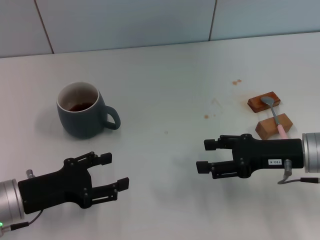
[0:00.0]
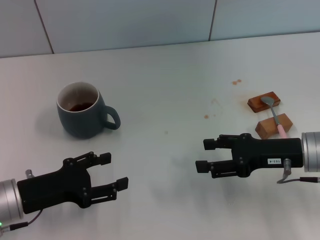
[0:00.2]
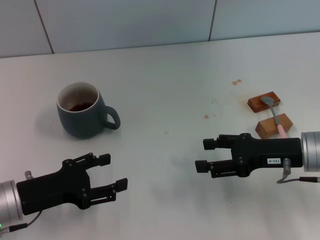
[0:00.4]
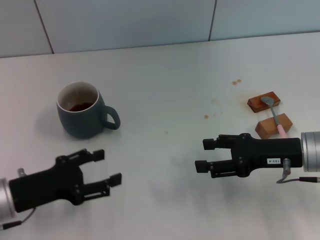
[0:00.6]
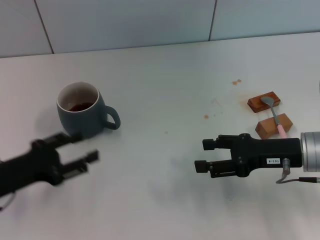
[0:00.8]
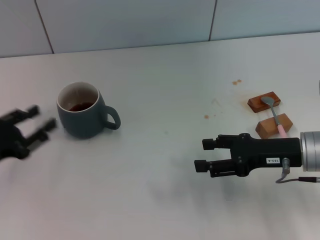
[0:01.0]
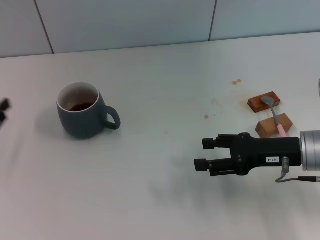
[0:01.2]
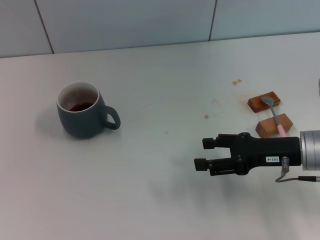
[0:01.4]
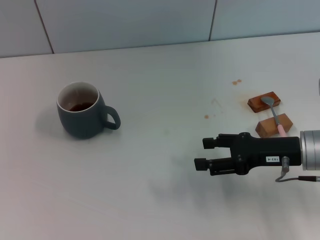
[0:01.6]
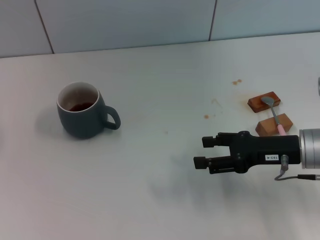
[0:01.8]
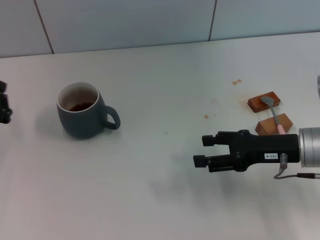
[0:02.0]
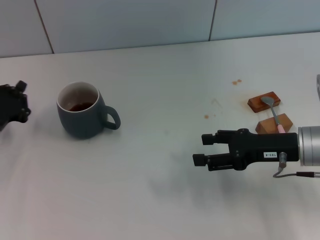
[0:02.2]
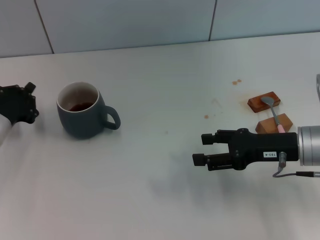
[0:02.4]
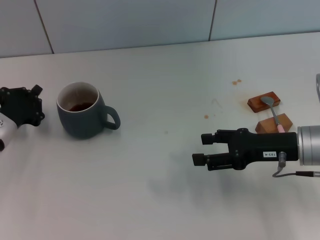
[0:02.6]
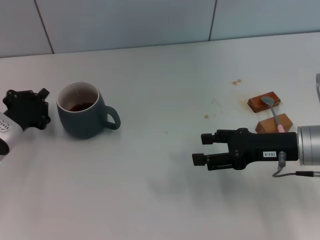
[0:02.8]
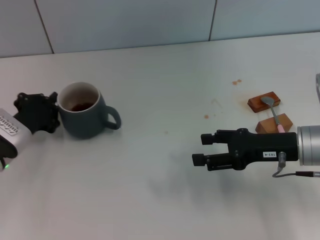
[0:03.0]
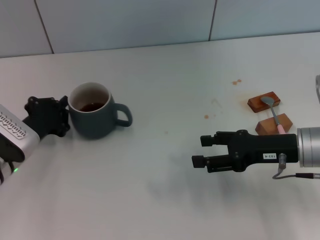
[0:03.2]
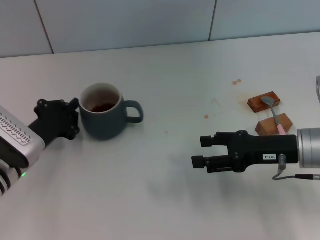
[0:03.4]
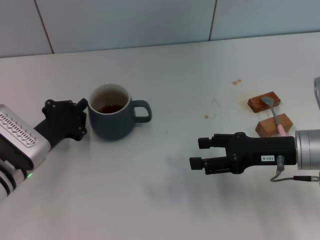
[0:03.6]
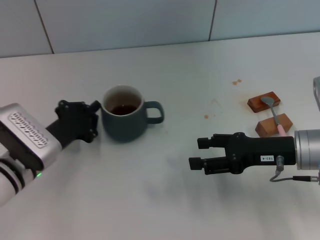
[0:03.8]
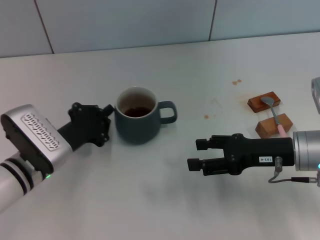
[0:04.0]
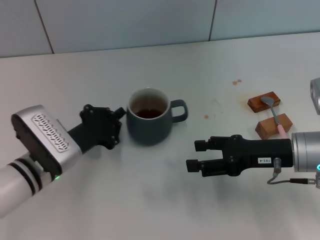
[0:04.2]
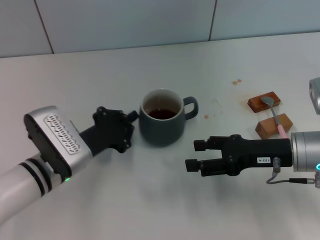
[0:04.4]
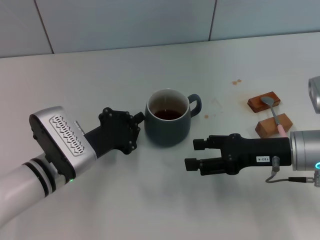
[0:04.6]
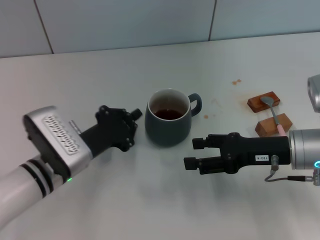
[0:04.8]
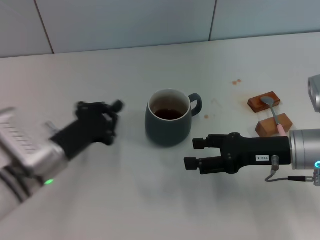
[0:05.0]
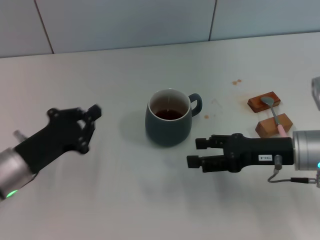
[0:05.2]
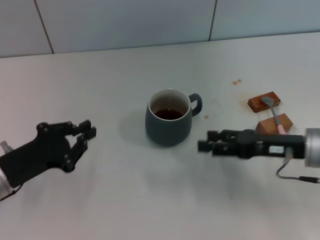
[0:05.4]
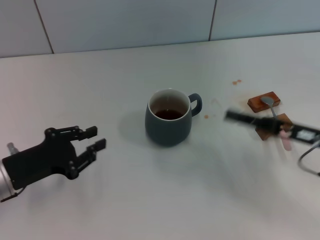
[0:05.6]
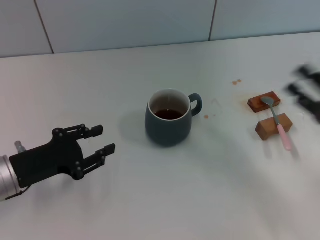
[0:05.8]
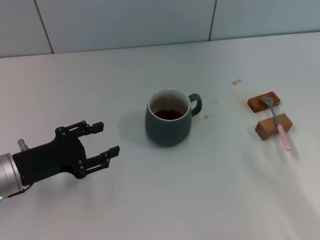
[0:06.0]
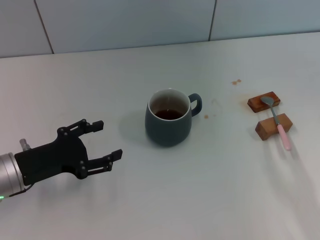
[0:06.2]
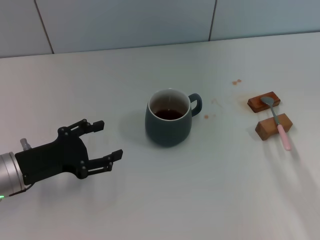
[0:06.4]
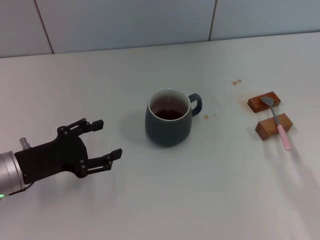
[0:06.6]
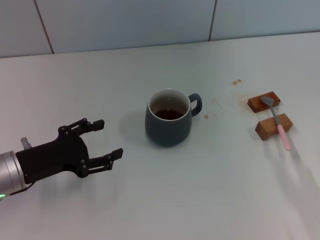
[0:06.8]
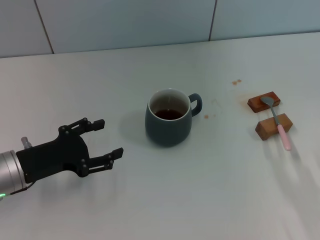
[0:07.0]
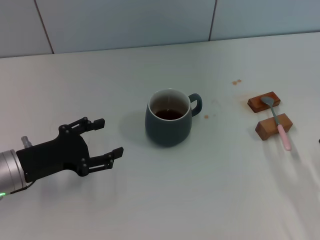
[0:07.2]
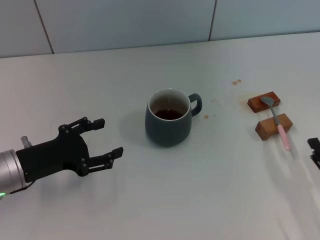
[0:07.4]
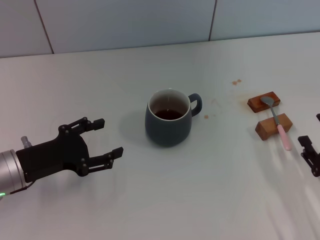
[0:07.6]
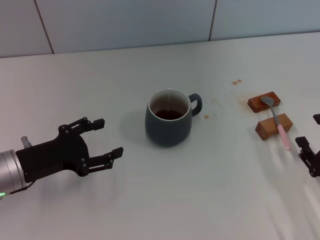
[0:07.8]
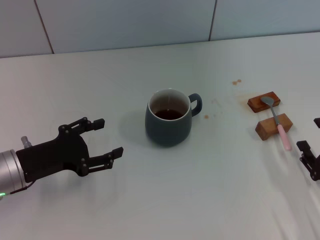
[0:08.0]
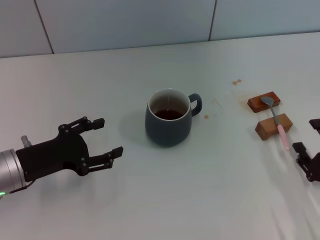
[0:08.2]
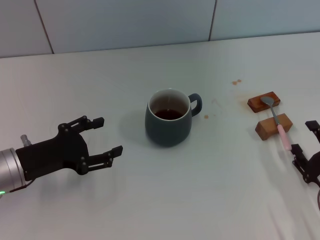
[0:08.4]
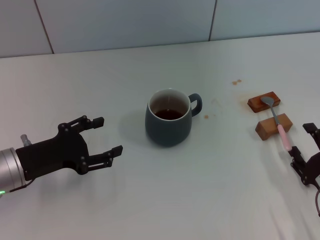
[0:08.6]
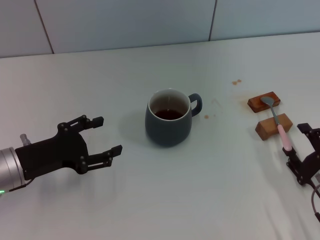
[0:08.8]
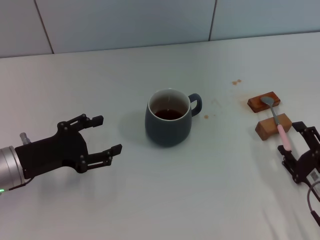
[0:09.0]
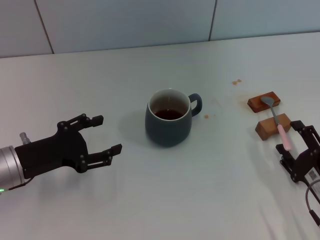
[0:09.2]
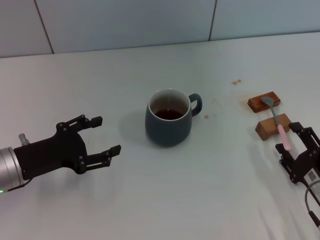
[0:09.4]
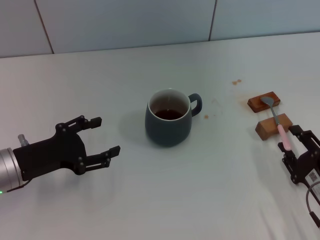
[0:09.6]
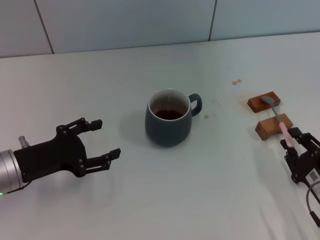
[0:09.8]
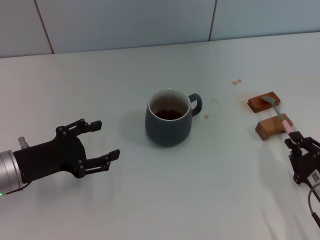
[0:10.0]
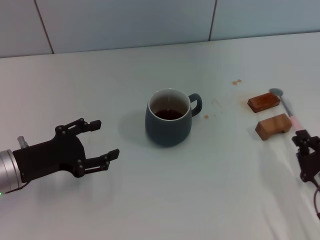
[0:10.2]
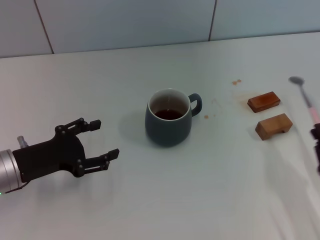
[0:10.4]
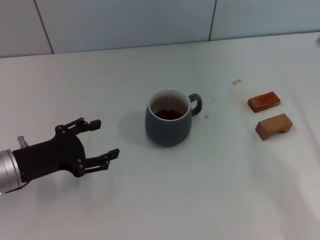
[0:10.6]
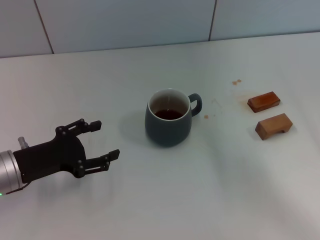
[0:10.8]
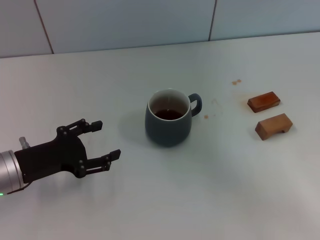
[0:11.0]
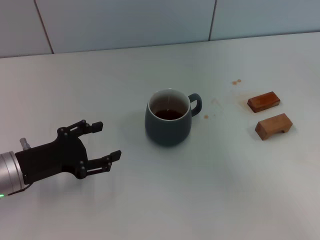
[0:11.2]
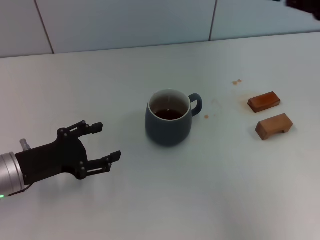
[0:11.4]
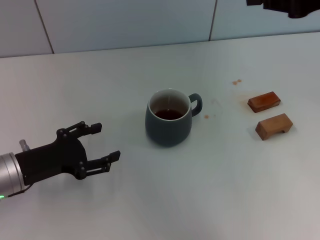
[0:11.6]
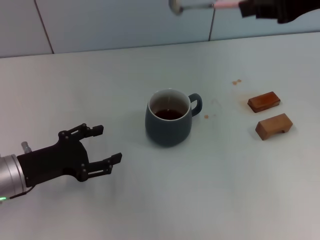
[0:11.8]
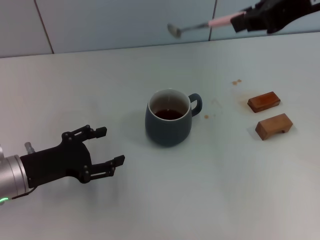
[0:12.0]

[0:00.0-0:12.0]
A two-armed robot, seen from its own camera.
Task of the whole recording: Move the grey cup to the center, lift the pink spoon, stir it three times in the cup, and put the spoon into the cup.
Step, 0.0 to 4.6 s: Move the cup with coffee to the center of view with the left gripper.
Step, 5.0 to 10.2 s: Pick up the spoon with the right gripper.
0.0 to 1.6 s: The left gripper is displaced to the left by roughly 10 cm, and closes its fingers.
1.6 to 3.0 s: The left gripper heads to the right, covering some 10 cm.
3.0 to 4.4 s: The left gripper heads to the right, covering some 10 cm.
4.4 to 6.0 s: The left gripper is displaced to the left by some 10 cm, and opens its fingers, while the right gripper moves backward and to the right, about 15 cm.
6.0 to 7.6 s: The right gripper moves roughly 5 cm. The left gripper opens up.
7.6 to 9.0 s: The grippers move only a little.
9.0 to 10.4 s: The right gripper closes its fingers.
10.4 to 12.0 s: The right gripper heads upward and forward, covering roughly 40 cm.

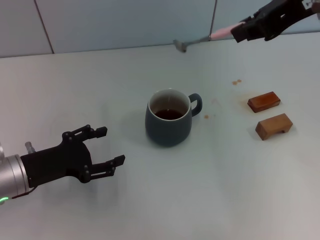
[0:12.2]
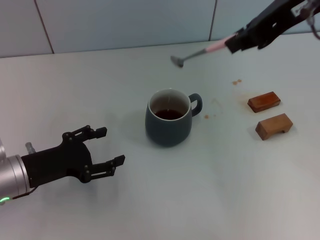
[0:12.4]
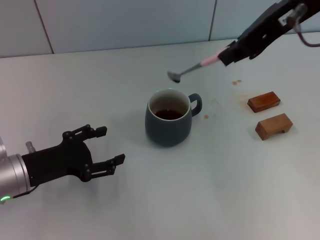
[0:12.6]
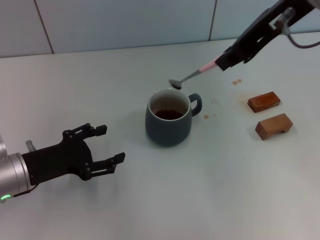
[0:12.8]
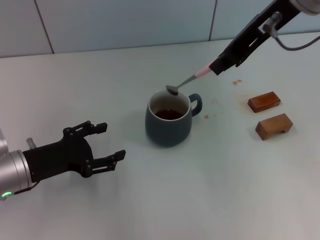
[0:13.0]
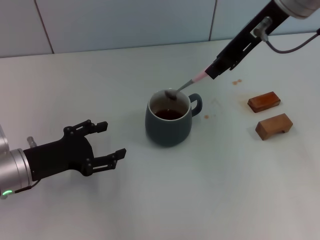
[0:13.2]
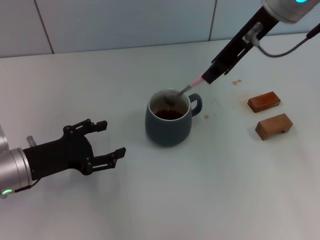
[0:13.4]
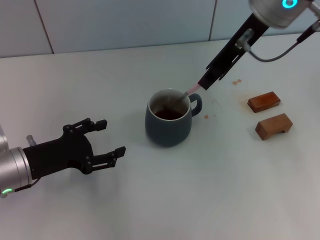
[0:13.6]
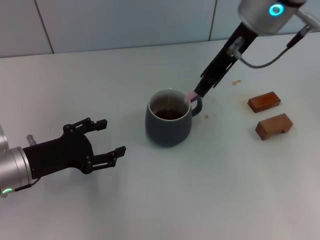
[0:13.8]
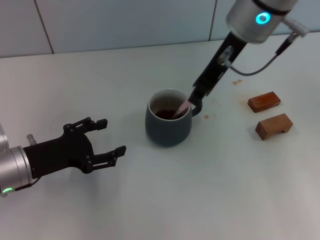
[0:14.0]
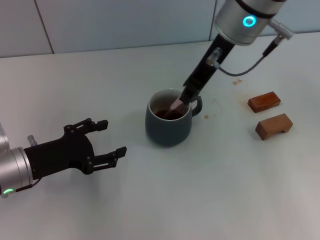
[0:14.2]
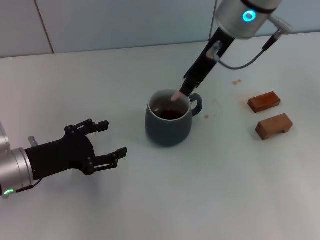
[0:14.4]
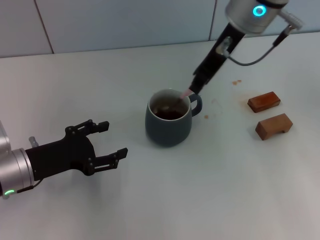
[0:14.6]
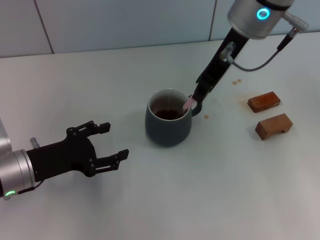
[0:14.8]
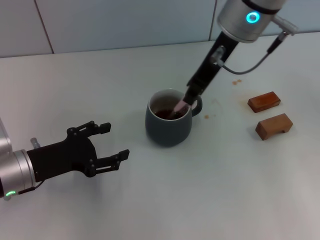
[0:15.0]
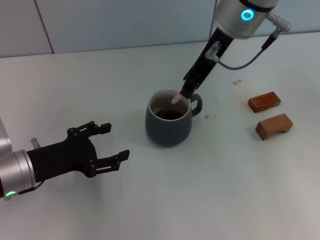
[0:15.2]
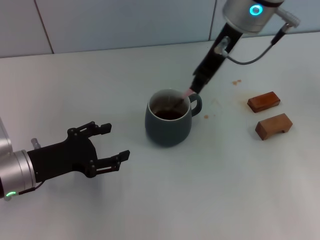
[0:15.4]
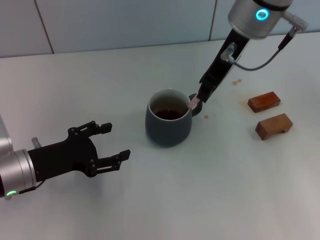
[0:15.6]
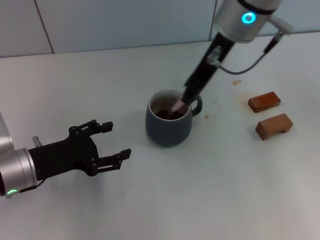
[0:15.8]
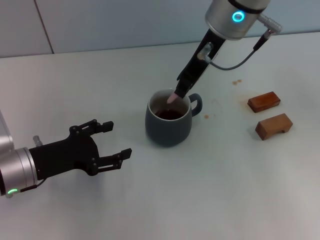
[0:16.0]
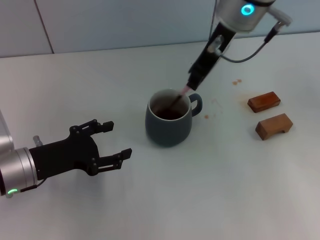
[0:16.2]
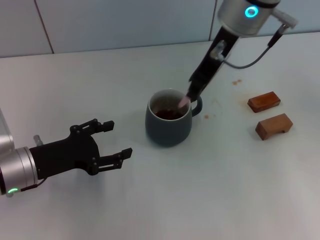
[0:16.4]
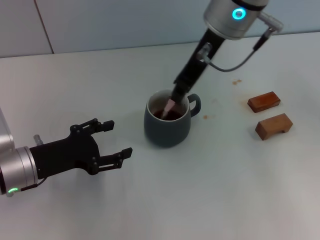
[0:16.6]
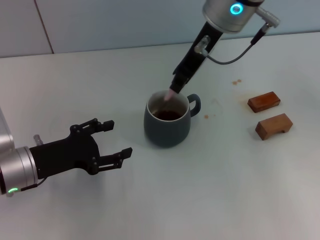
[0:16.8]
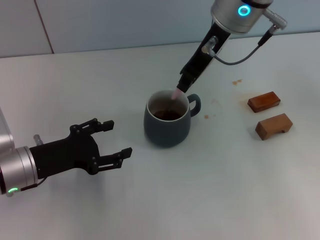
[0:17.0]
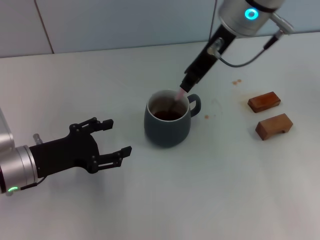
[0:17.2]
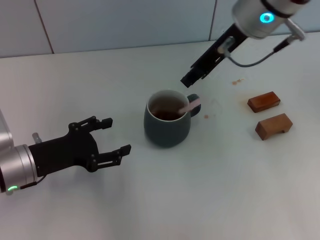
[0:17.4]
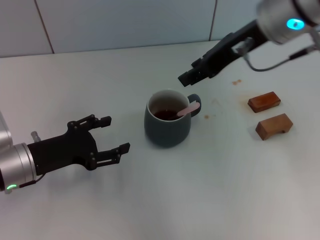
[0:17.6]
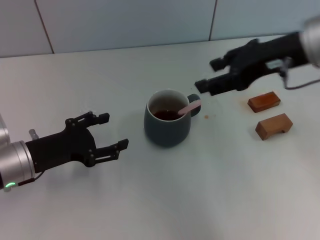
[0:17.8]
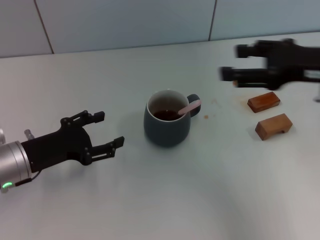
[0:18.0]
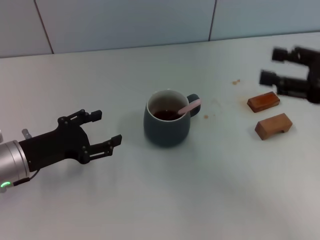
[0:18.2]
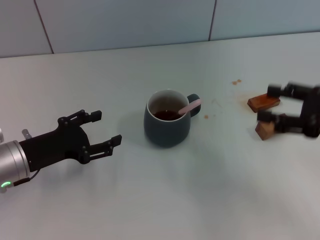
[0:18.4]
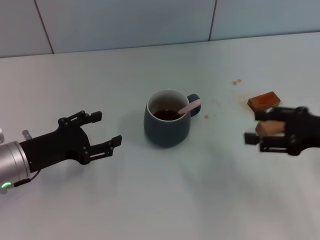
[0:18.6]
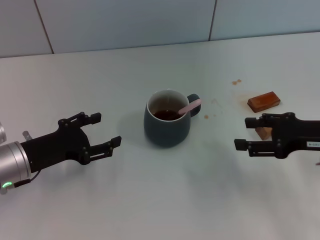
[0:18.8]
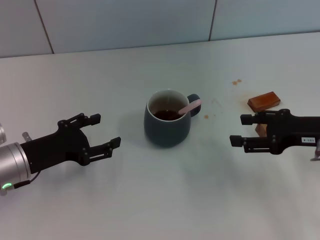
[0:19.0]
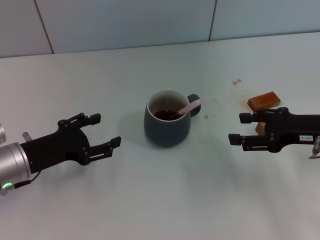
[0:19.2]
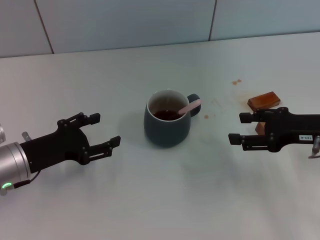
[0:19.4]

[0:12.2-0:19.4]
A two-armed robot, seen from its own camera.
Task of the whole recording: Move the grey cup to the center, lift the pink spoon, stir it three times in the cup, and put the spoon into the cup.
Step, 12.2 to 17.6 s: Stir the coffee in the cup with the right gripper.
12.2 to 13.6 s: The right gripper travels forward, downward and to the left by about 10 cm.
13.6 to 16.6 s: The grippers stay close to where they were, moving slightly.
16.6 to 18.0 s: The right gripper shifts about 20 cm to the right and backward, and opens its fingers.
18.0 to 19.4 s: The right gripper goes approximately 10 cm downward.

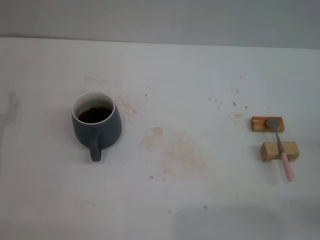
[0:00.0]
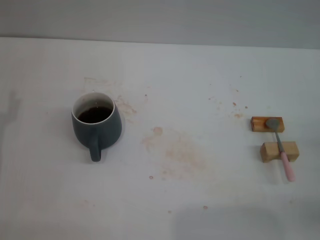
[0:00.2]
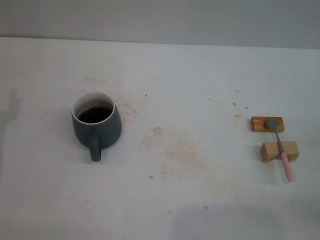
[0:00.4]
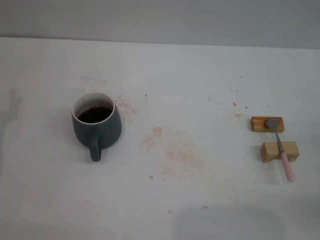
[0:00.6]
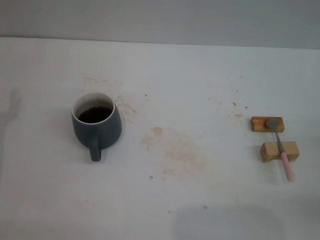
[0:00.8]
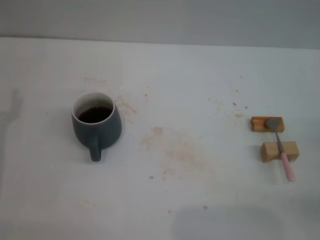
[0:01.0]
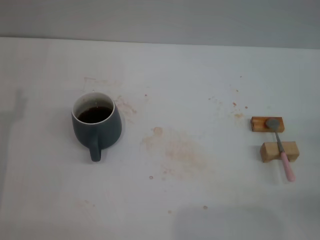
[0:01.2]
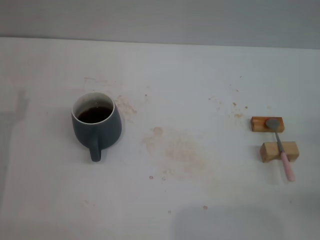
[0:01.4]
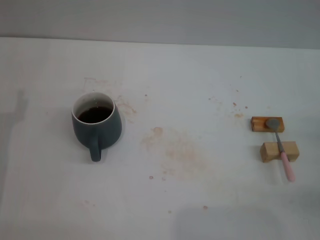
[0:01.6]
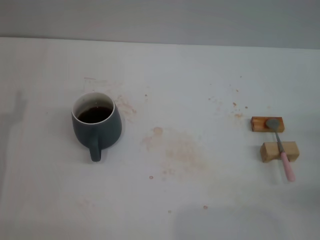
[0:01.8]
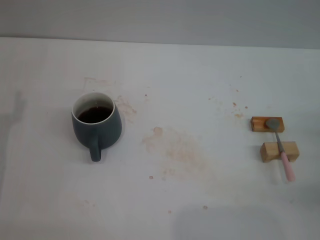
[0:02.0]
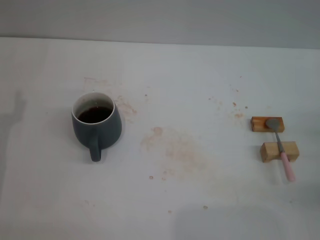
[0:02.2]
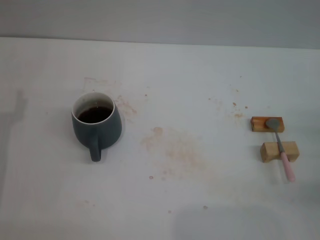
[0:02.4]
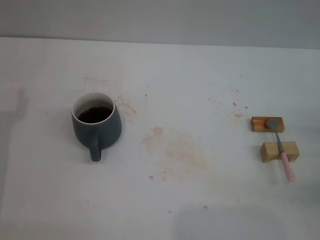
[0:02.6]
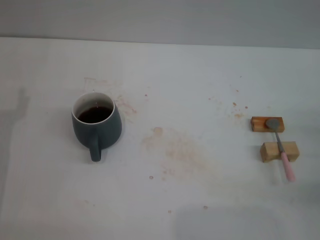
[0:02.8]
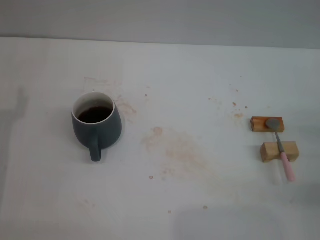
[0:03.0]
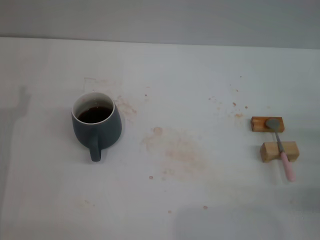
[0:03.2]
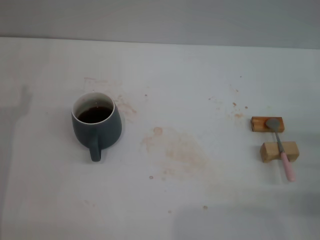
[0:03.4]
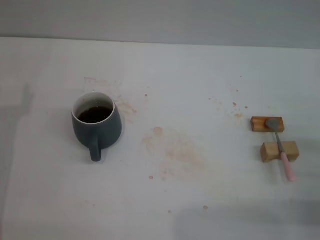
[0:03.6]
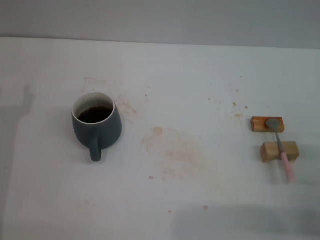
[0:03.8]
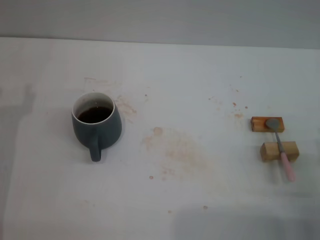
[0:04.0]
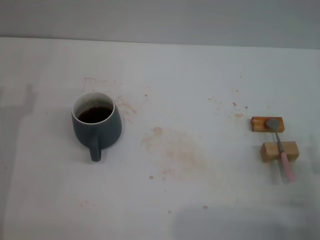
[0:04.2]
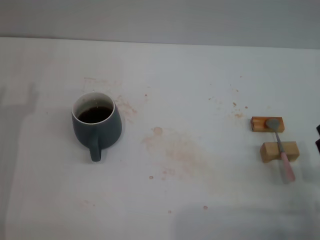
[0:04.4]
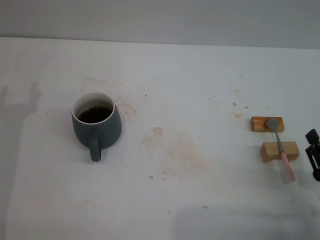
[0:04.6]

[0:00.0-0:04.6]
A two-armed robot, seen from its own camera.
Task of the whole recording: Move the grey cup to the center, lift the pink spoon, stir it three times in the cup, and put the spoon into the cup.
3.0 to 4.6 s: The right gripper heads backward and to the left, covering approximately 10 cm.
